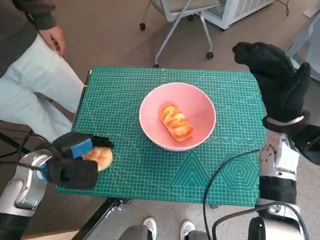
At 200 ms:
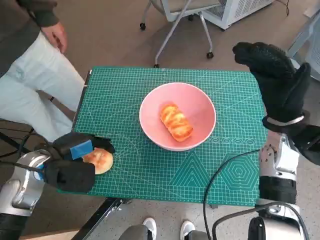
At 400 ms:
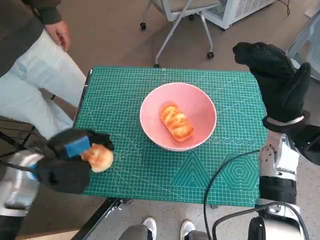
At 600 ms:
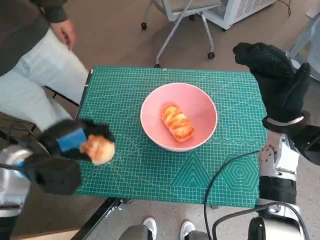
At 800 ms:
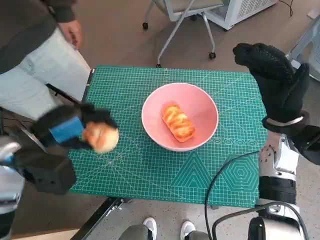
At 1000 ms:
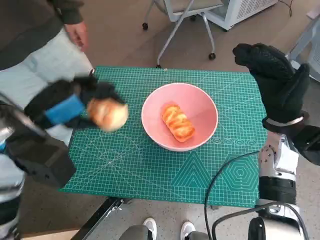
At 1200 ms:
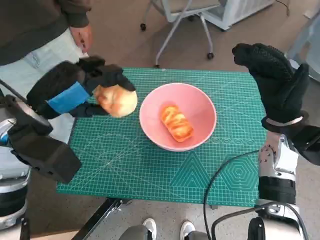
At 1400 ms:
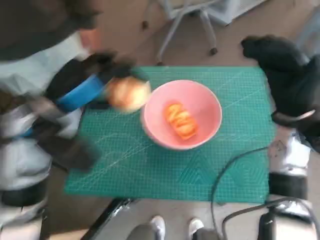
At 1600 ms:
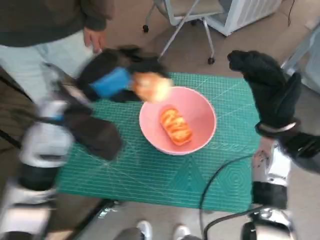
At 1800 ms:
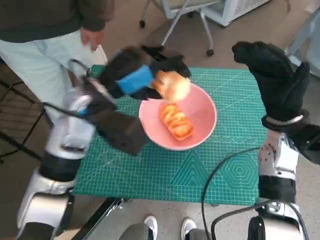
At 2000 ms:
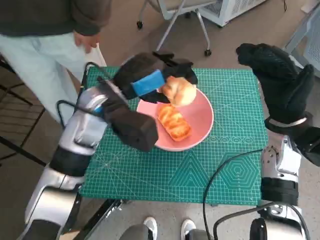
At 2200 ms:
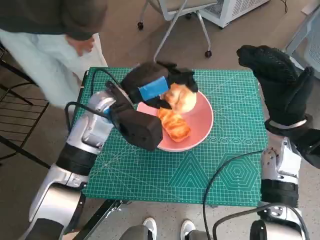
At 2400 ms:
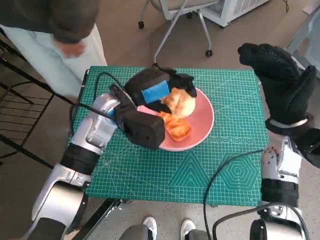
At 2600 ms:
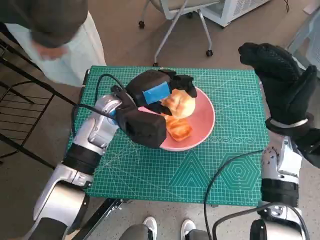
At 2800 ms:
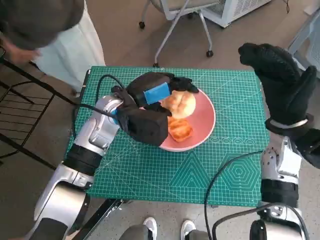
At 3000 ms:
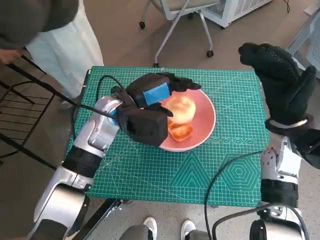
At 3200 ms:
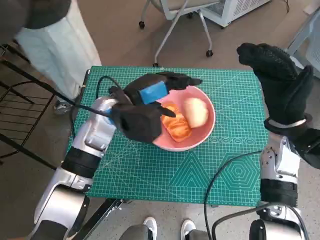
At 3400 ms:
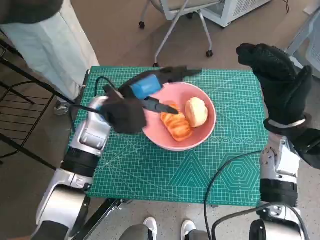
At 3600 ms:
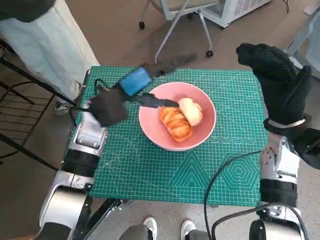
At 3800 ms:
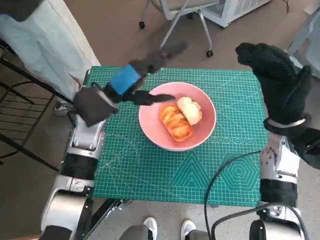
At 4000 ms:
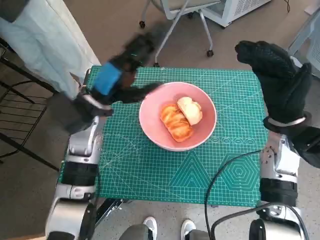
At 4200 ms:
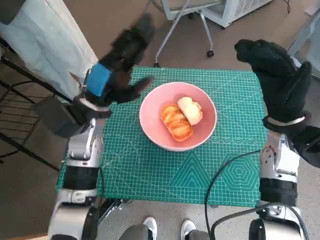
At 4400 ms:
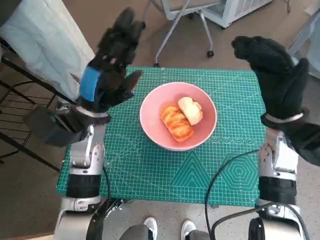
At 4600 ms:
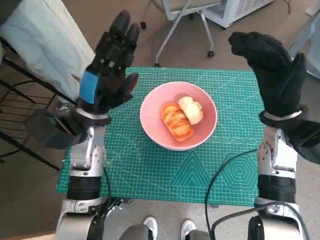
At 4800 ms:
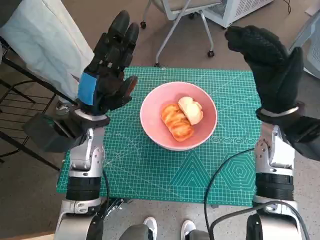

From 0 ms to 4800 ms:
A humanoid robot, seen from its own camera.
Task of the whole recording: Push the bowl into the center of the table and put the bread into the bowl.
Step, from 200 ms to 3600 ms: Place the round bread in pink bowl with left hand.
From 0 ms to 1600 ms: The left hand travels upward and to the right by some 15 cm.
From 1600 ms to 3200 ms: The left hand travels downward and to the right by about 10 cm.
From 3200 ms to 4800 ms: The left hand shifts by some 5 cm.
